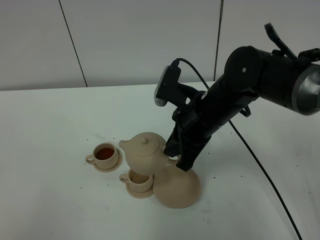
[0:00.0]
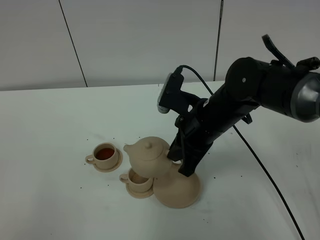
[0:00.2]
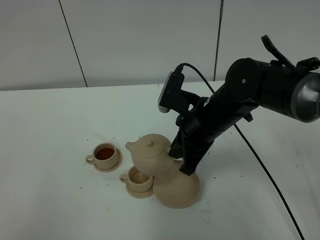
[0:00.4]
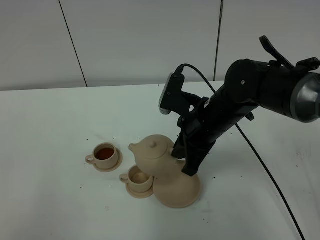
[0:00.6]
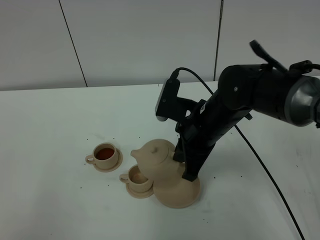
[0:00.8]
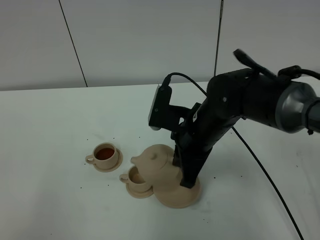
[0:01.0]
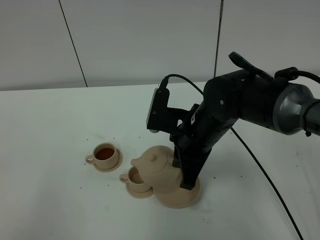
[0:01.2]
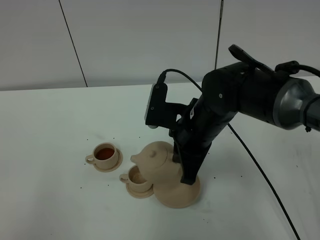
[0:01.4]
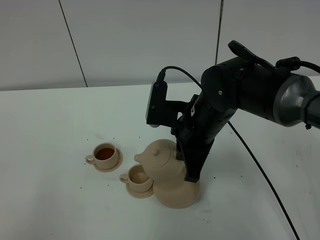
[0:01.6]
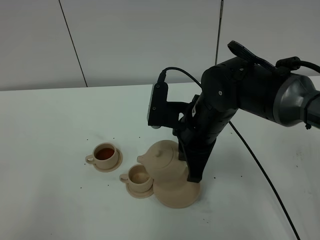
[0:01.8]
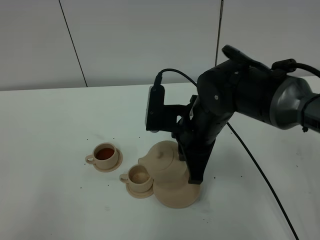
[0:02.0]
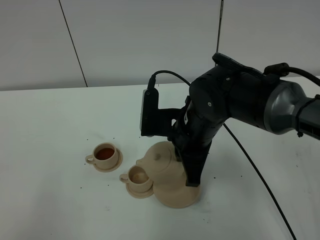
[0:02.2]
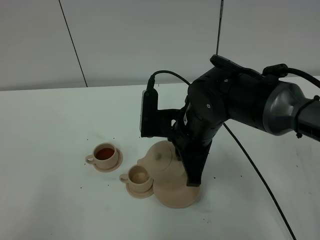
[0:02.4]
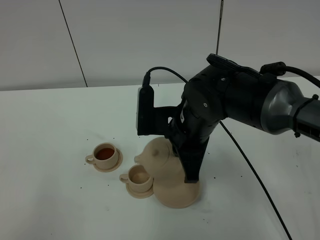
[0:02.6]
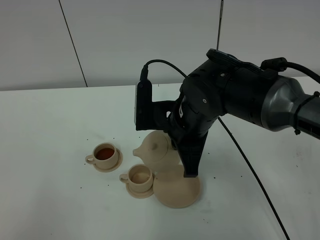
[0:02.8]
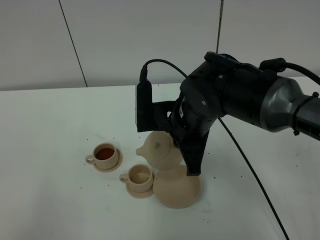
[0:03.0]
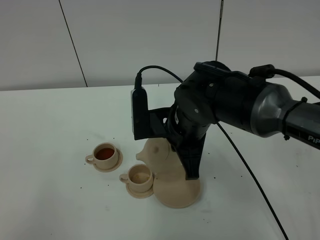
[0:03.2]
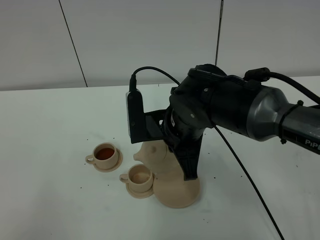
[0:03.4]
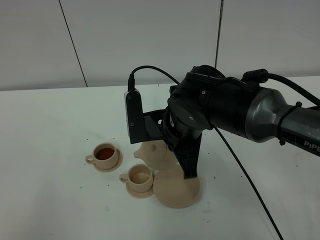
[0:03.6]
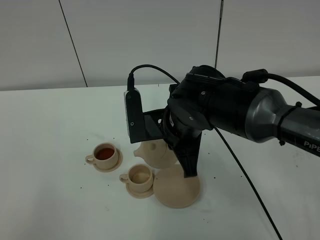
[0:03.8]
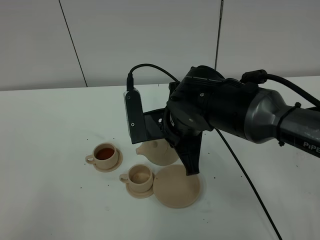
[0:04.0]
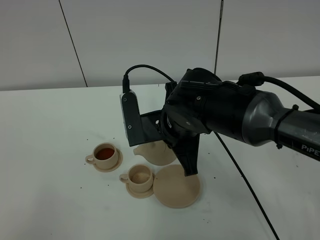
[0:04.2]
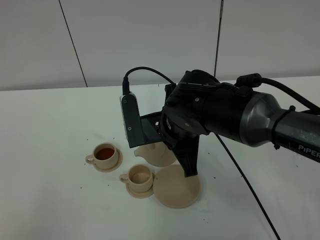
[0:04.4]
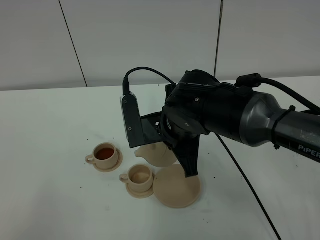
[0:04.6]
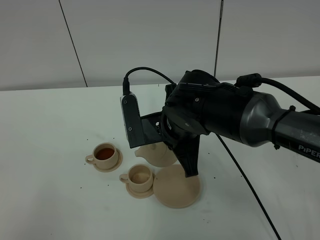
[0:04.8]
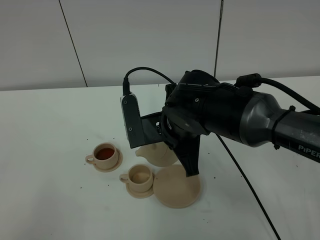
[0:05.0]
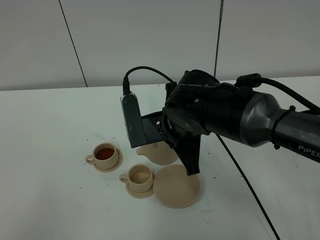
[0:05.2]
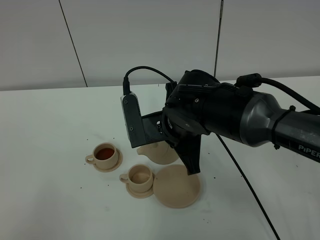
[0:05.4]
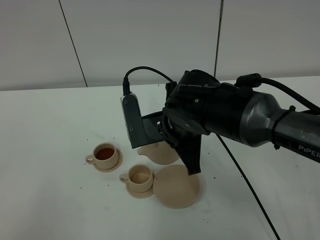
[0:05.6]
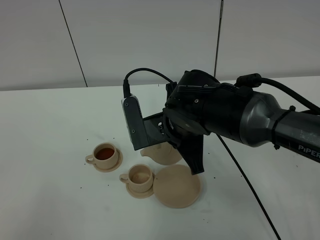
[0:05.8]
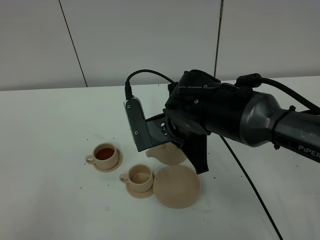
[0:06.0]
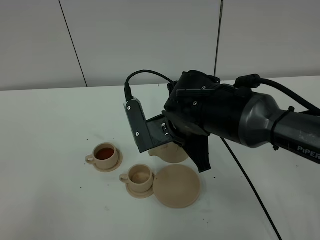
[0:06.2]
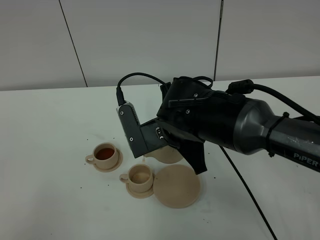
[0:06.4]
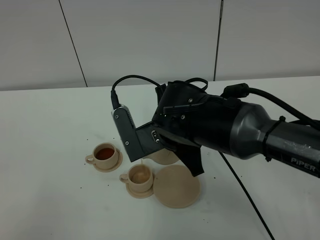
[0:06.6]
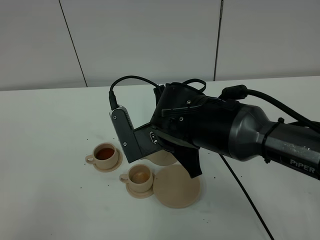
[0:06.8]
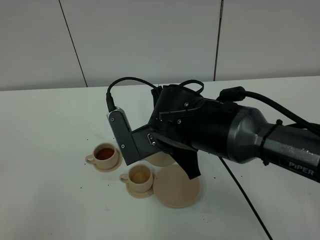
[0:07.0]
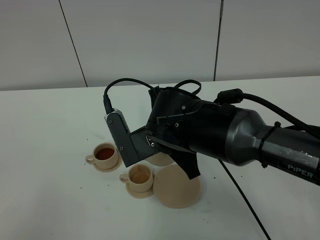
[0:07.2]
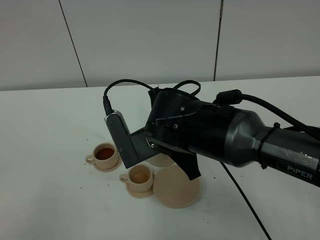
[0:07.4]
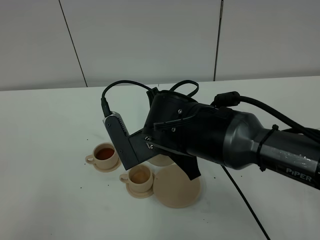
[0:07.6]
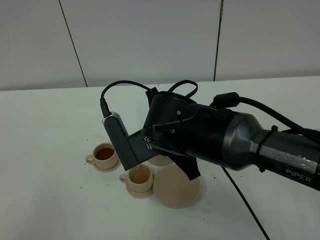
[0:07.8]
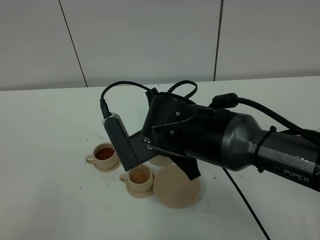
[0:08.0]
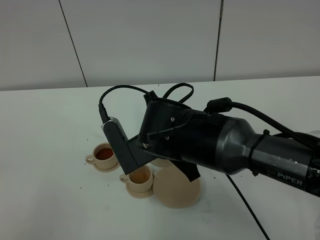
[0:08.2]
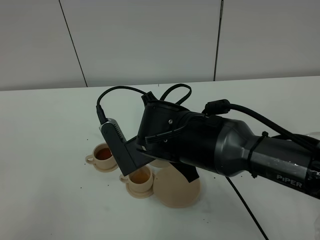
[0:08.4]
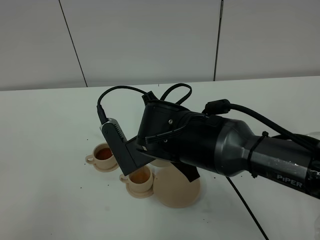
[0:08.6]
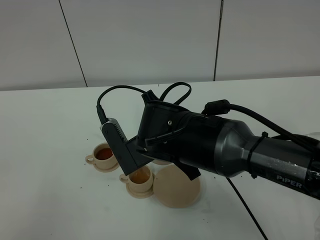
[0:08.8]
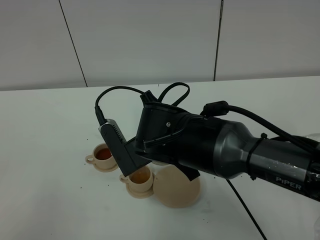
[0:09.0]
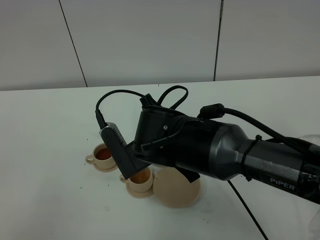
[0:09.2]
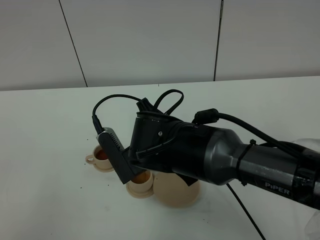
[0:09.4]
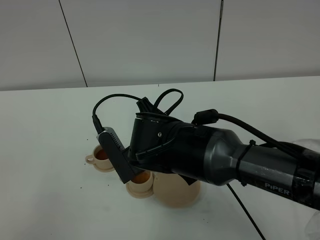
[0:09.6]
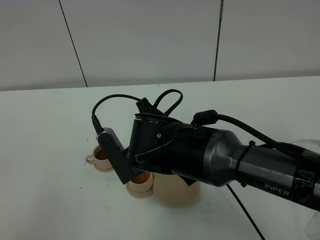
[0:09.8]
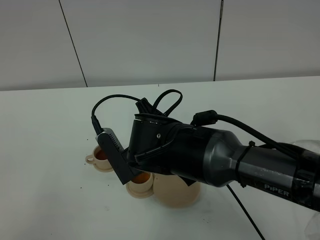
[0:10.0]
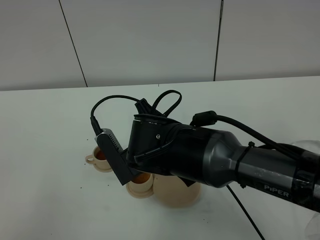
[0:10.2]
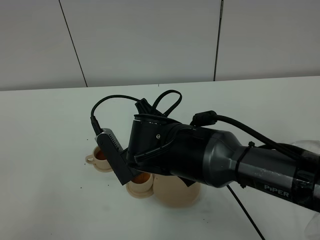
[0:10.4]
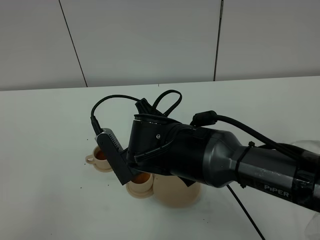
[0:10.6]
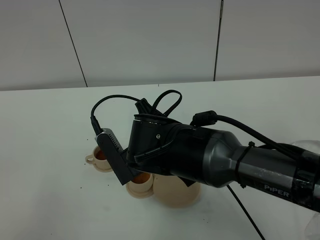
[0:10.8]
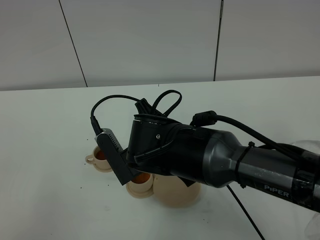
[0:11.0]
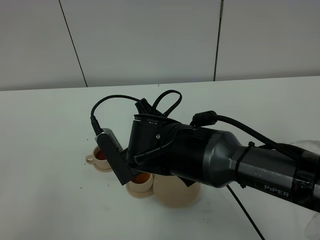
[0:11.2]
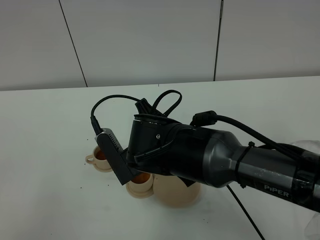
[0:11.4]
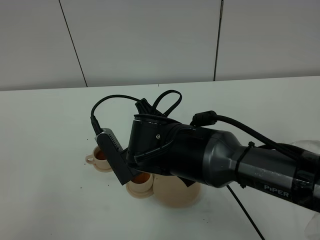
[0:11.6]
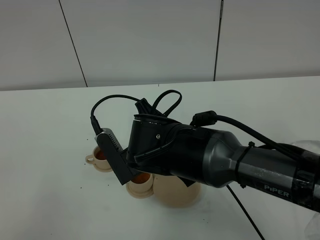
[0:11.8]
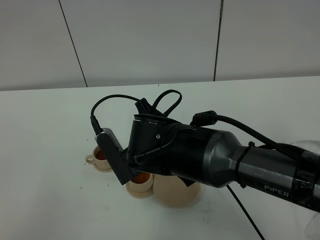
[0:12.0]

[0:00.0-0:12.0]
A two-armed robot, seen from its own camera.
Task of the whole recording: grasp the brown teapot and pour the tea into the two brown teacups one by one, put the brown teapot back in its original place.
0:00.0 to 0:01.6: The grippers stay close to where they were, moving slightly.
0:01.6 to 0:03.0: There are only small adjustments of the grippers.
0:03.0 to 0:06.0: The grippers move only a little.
0:06.0 to 0:09.0: The grippers make only small movements.
0:09.0 to 0:10.4: Both grippers stay put.
0:10.4 to 0:12.0: Both grippers stay about where they are.

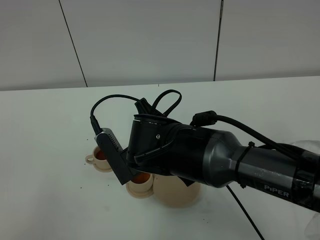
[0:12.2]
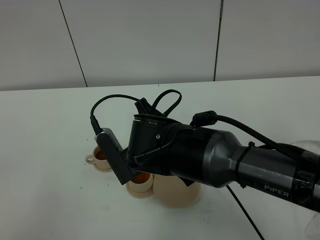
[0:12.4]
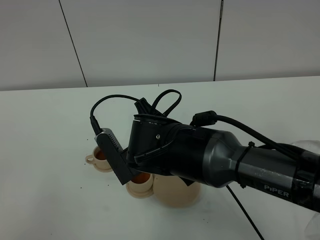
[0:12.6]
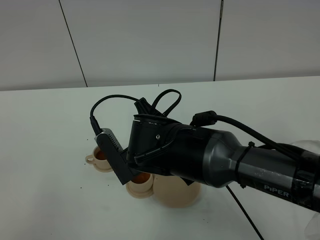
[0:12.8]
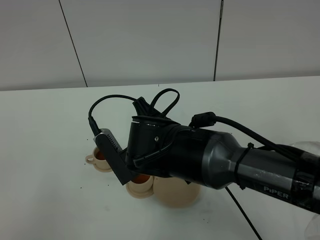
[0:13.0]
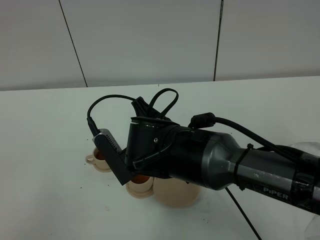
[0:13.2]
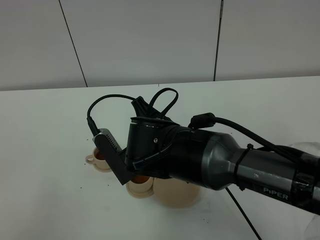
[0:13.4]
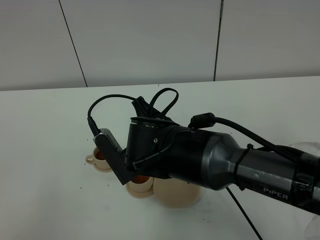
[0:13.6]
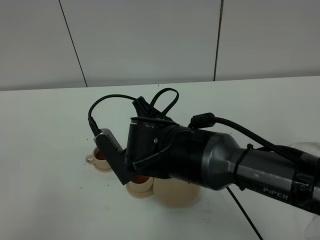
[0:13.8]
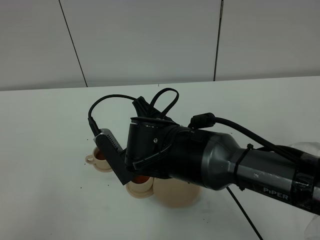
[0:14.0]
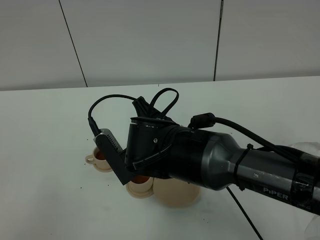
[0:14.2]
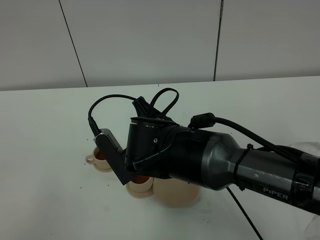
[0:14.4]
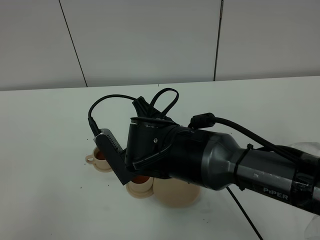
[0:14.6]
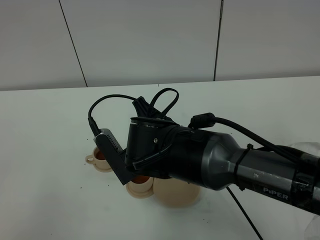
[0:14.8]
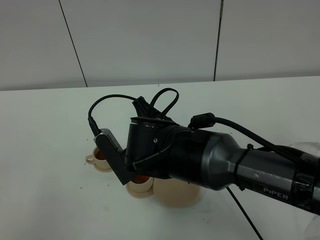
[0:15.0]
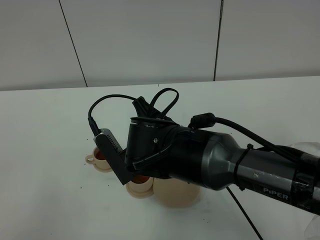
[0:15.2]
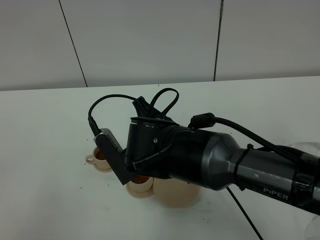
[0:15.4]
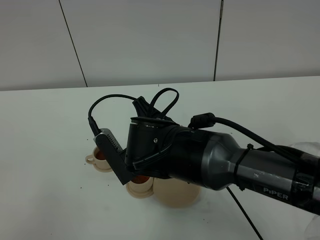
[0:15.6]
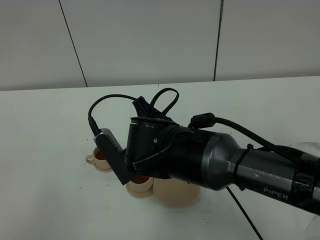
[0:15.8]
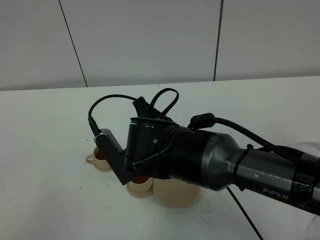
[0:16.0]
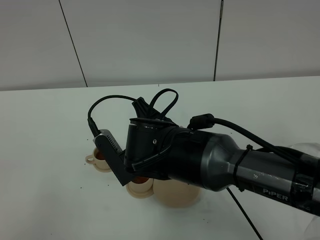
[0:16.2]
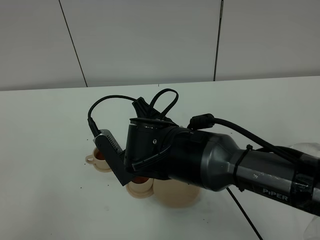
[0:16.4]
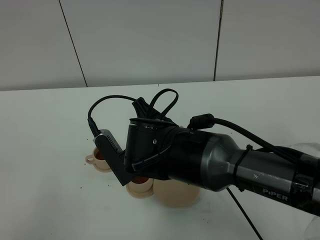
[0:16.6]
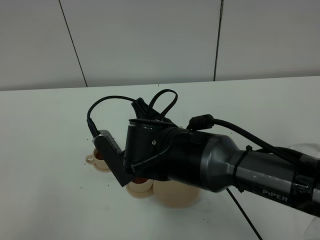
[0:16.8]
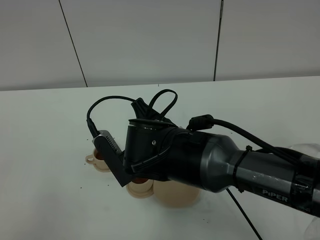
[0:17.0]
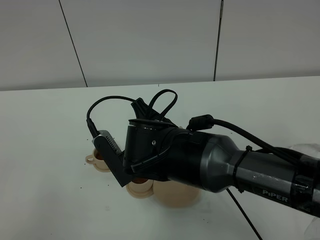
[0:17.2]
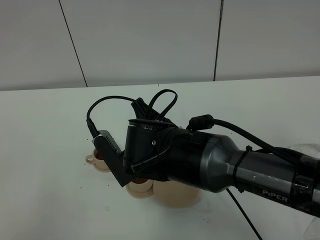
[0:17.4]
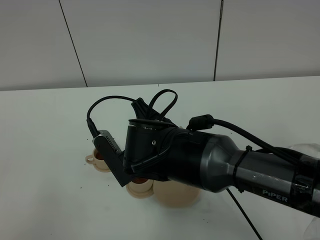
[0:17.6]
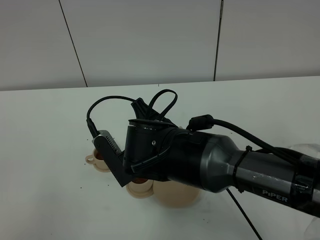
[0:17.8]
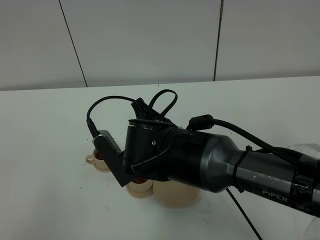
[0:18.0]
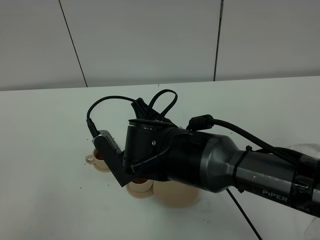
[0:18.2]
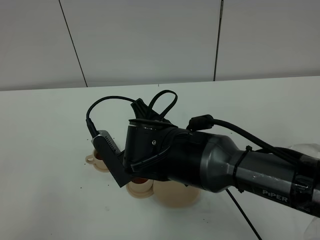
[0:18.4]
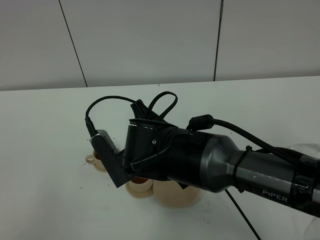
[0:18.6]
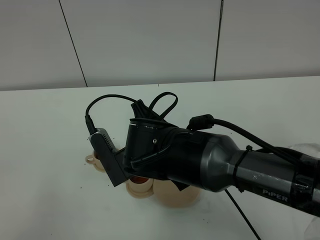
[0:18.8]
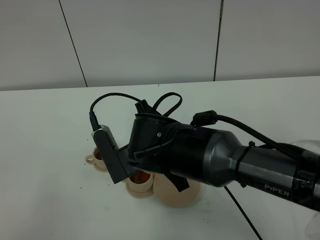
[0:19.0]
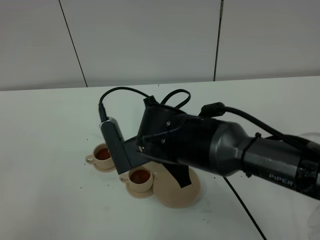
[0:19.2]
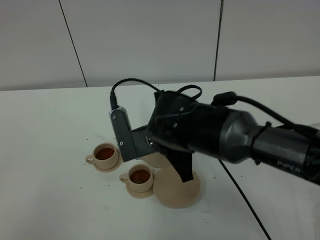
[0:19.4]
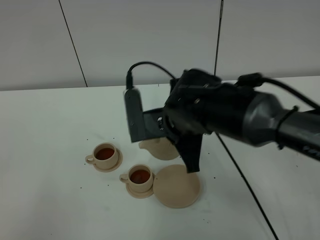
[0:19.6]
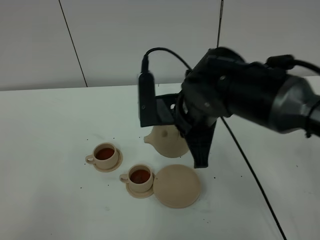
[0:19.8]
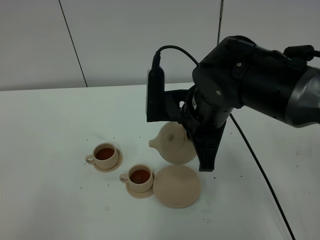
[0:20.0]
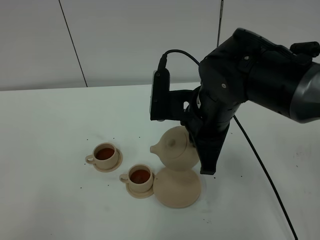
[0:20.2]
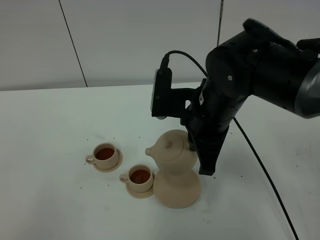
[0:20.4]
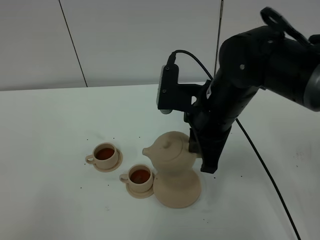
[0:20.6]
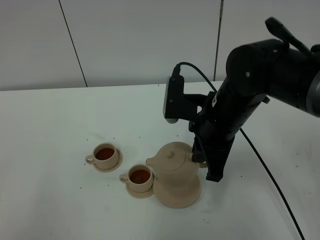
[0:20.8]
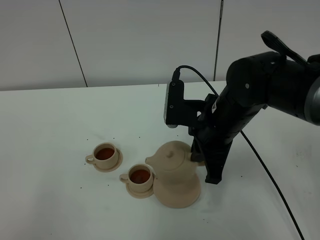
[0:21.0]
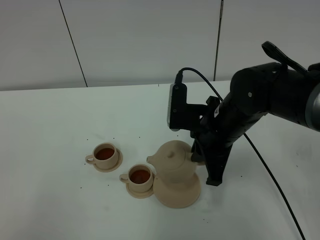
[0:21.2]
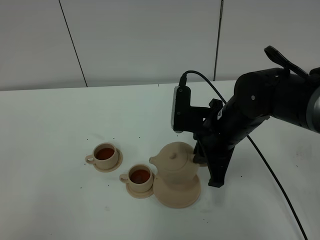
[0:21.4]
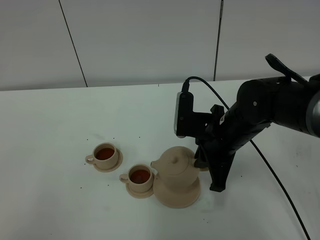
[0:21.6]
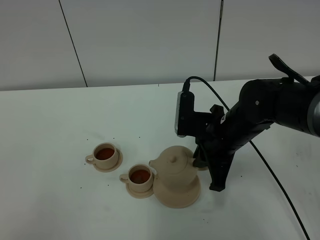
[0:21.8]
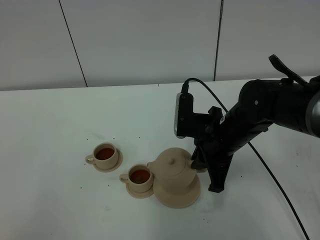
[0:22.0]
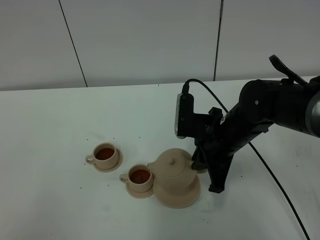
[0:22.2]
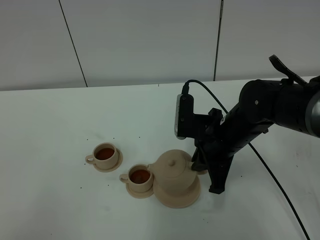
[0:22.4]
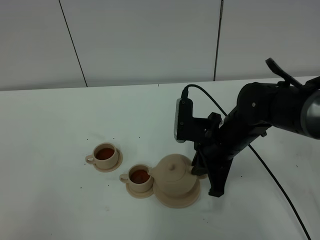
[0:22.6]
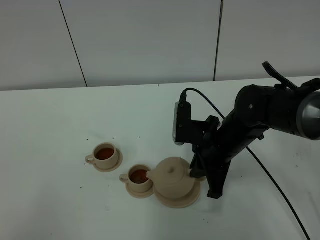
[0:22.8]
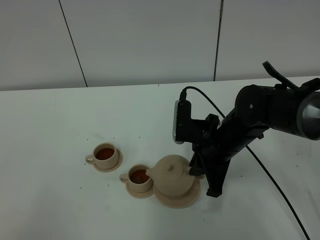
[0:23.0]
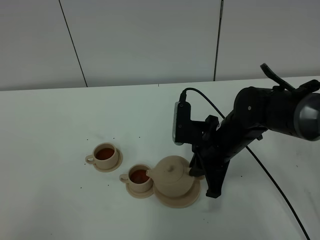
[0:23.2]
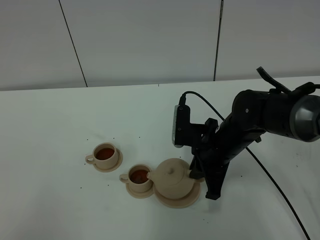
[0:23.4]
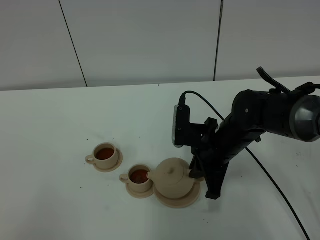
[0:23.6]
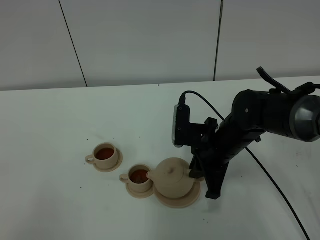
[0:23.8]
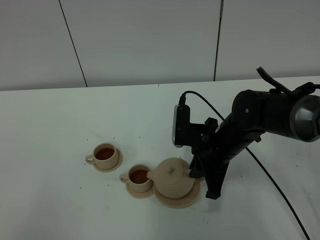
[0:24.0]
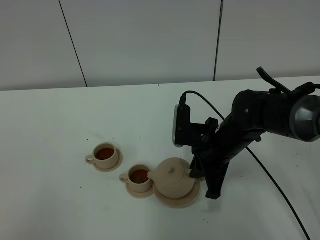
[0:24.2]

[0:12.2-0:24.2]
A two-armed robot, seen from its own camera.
Task of the whole recording: grasp the brown teapot and pour the tea into the two brown teacups one by one, put the brown teapot back in its original place.
Step, 0:12.2 to 0:19.2: Pour tea into the teacup with the right gripper.
0:12.2 to 0:18.2: Neither gripper changes place.
0:18.2 to 0:19.8: The right gripper moves to the right, approximately 5 cm.
0:19.8 to 0:21.2: The right gripper moves some 5 cm.
0:21.2 to 0:24.2: The grippers make only small movements.
